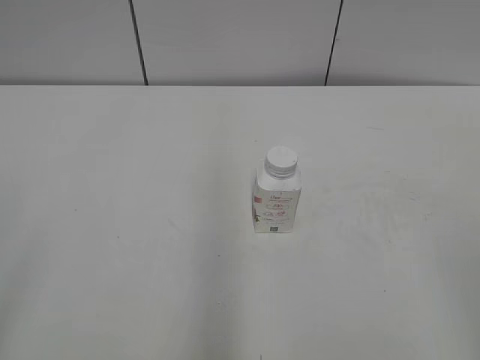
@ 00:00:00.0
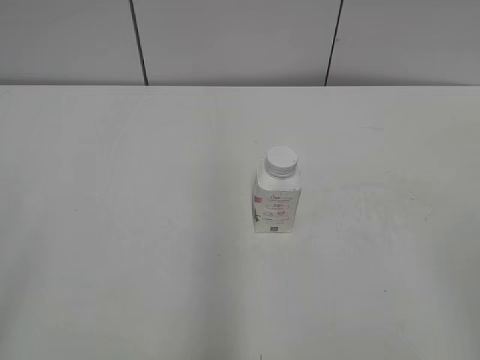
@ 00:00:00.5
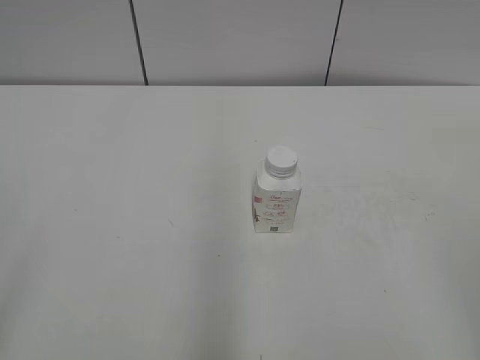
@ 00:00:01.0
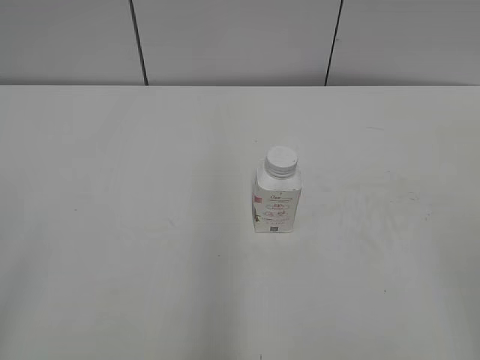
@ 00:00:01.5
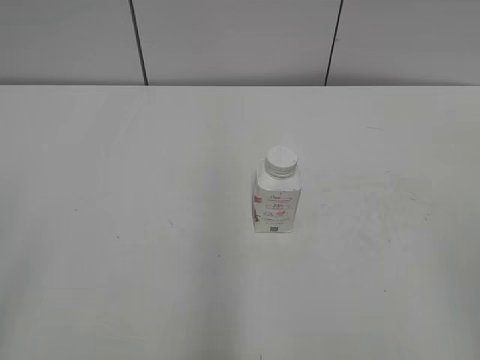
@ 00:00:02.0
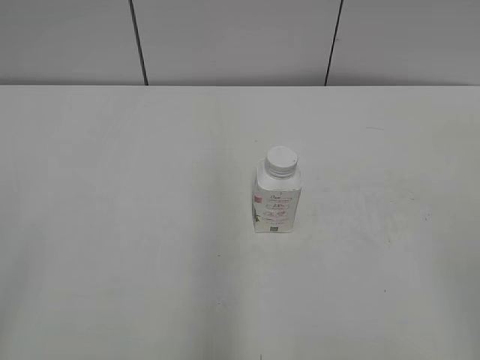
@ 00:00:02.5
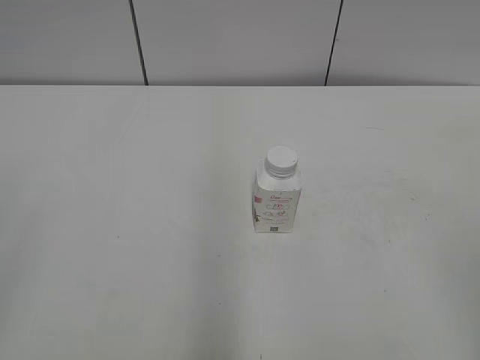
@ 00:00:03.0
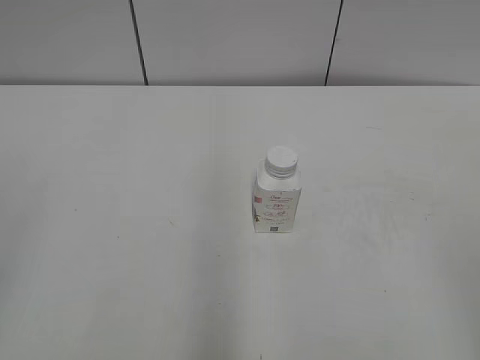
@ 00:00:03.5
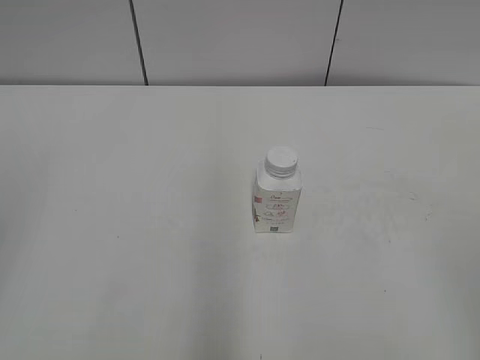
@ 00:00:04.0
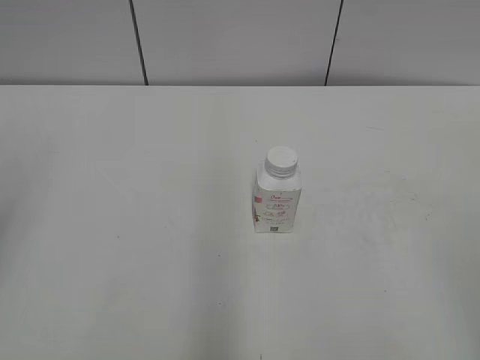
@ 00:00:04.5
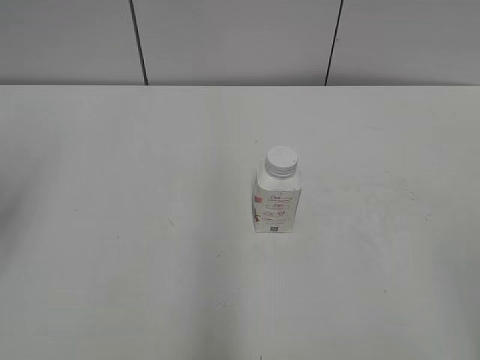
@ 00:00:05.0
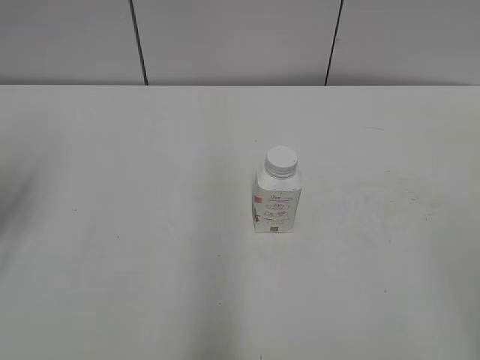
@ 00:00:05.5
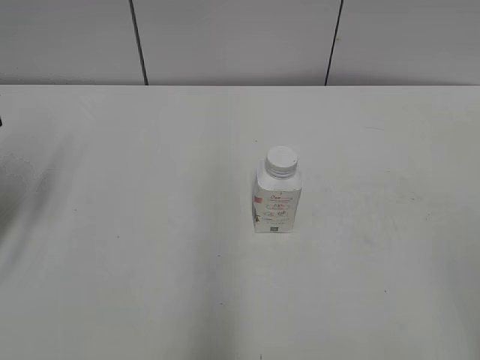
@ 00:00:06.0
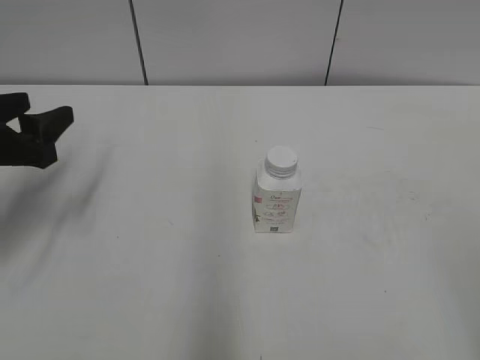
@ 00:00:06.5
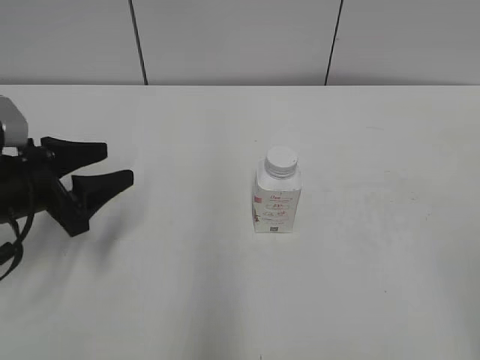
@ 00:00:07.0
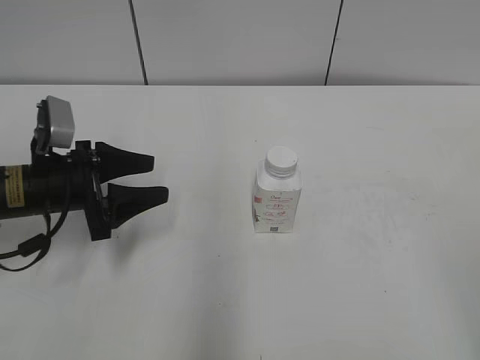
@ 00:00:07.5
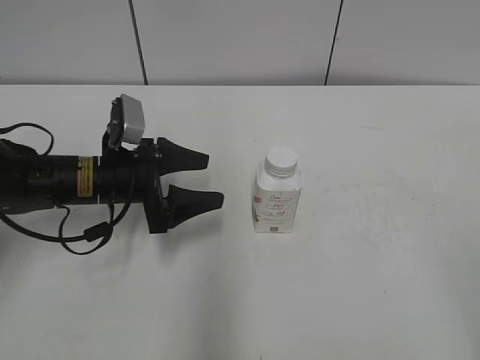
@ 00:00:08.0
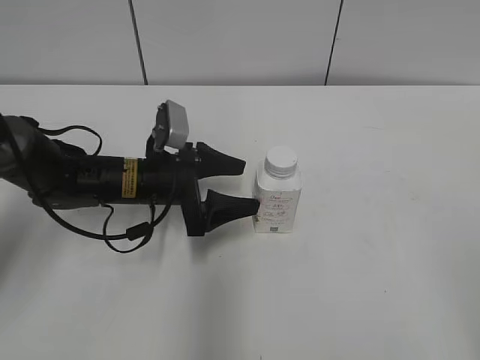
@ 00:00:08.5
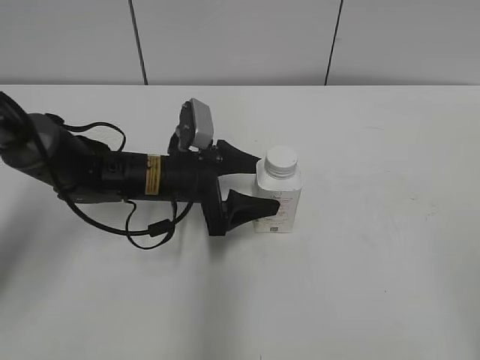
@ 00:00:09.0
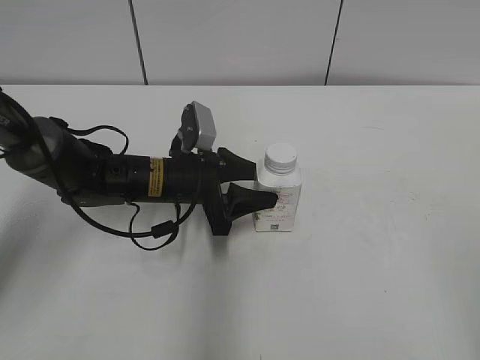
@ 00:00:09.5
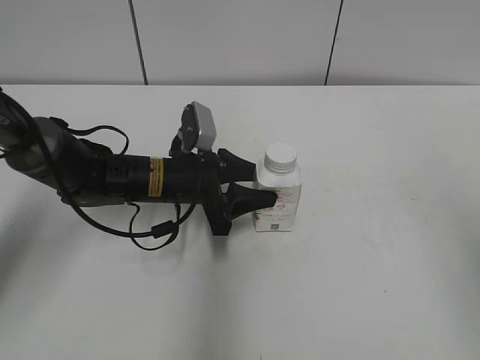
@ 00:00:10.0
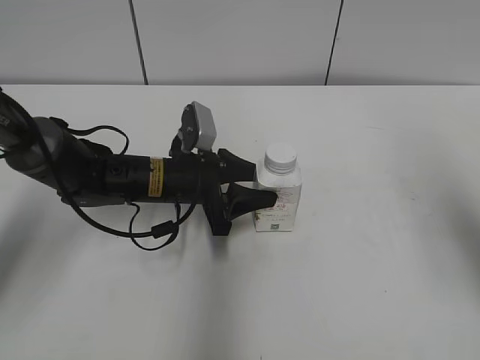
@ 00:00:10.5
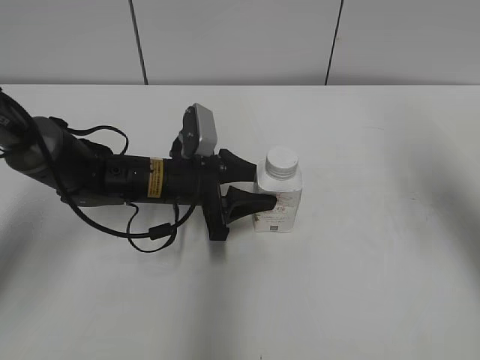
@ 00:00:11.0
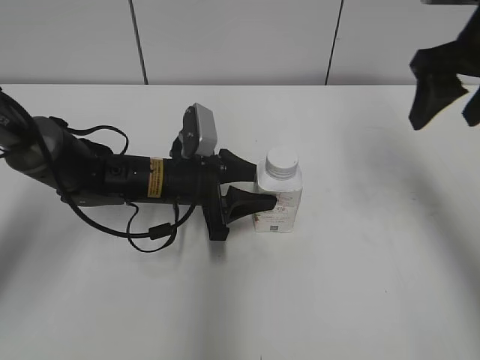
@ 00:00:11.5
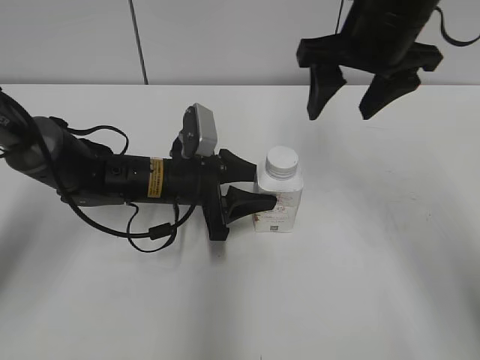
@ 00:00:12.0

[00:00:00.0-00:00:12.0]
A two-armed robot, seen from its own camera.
Step, 00:00:00.0 to 00:00:09.5: Grab the Yili Changqing with the left hand.
00:00:04.0 to 00:00:06.0: The left gripper goes approximately 20 cm forward and downward.
00:00:06.0 to 00:00:08.0: The left gripper travels to the right, downward and forward by approximately 20 cm, and opens its fingers.
00:00:08.0 to 00:00:10.0: The right gripper shifts some 10 cm forward and upward. Meanwhile the left gripper moves to the right, about 5 cm, and closes its fingers.
00:00:10.0 to 00:00:12.0: The right gripper goes approximately 30 cm forward and to the left.

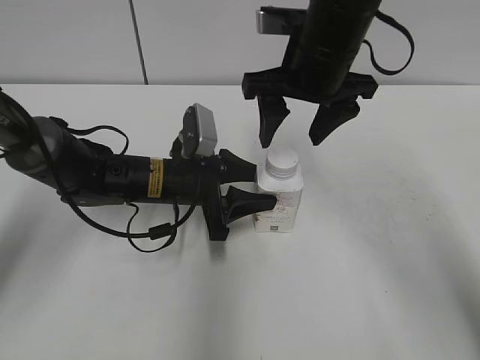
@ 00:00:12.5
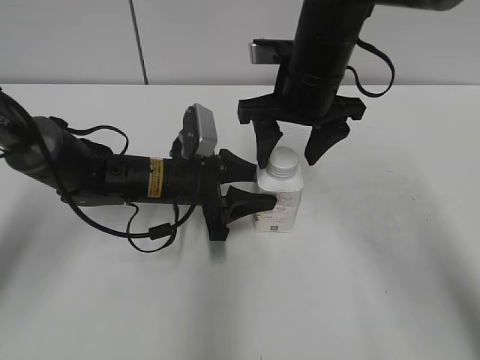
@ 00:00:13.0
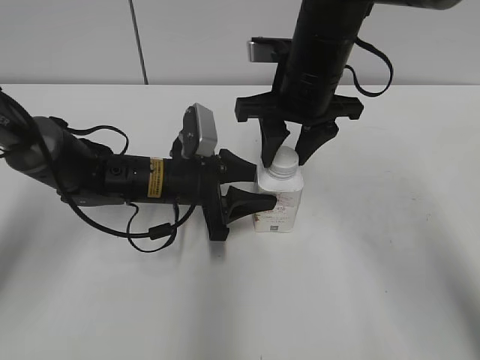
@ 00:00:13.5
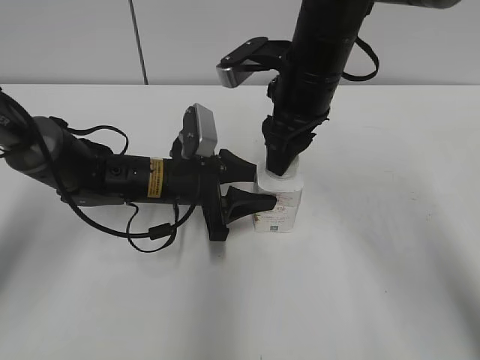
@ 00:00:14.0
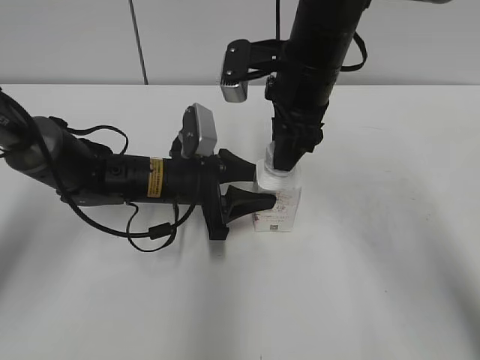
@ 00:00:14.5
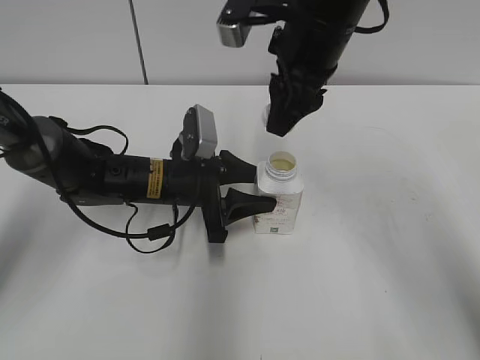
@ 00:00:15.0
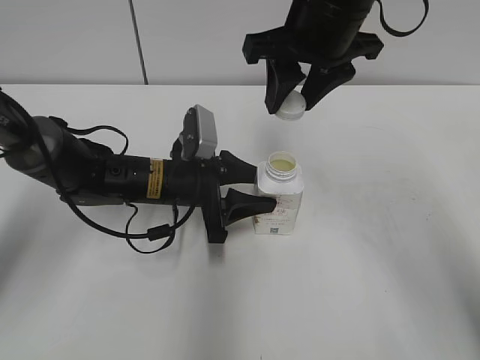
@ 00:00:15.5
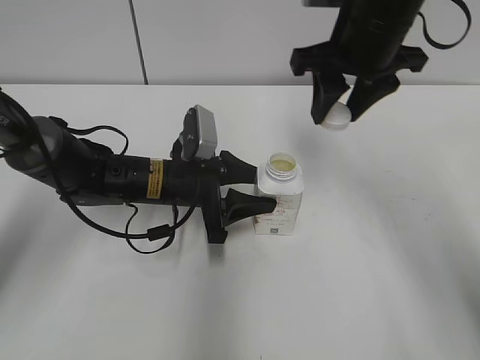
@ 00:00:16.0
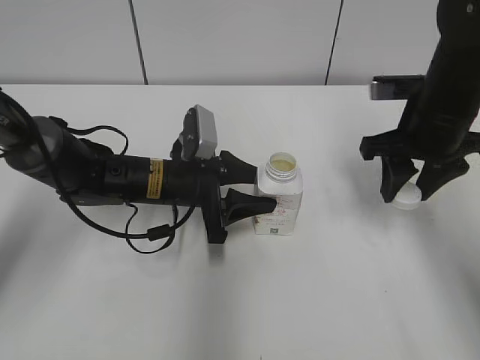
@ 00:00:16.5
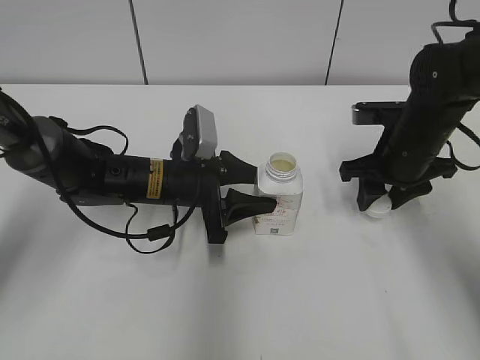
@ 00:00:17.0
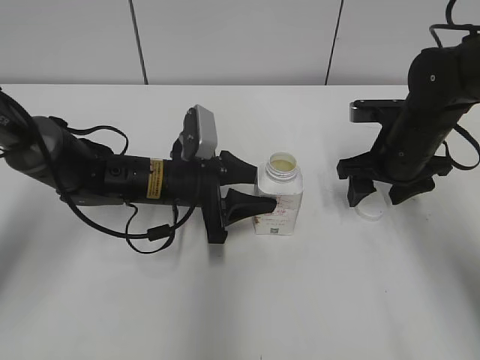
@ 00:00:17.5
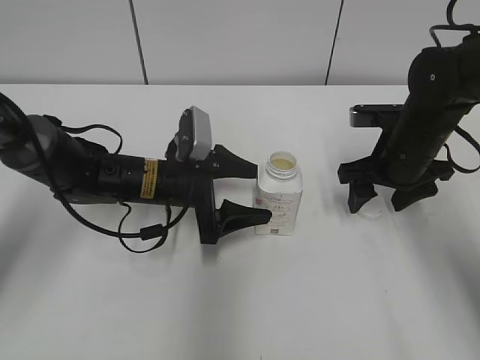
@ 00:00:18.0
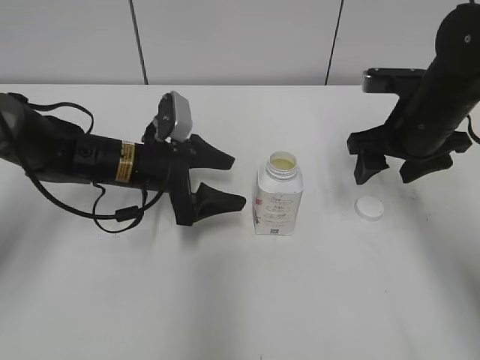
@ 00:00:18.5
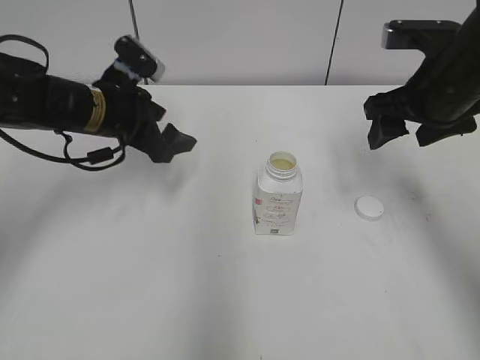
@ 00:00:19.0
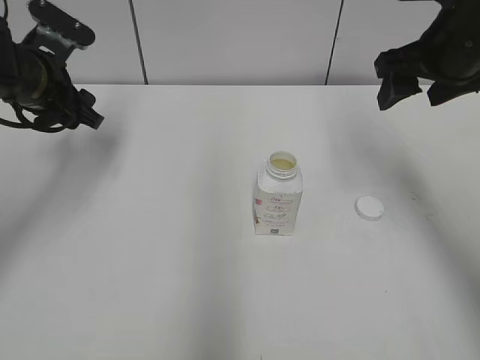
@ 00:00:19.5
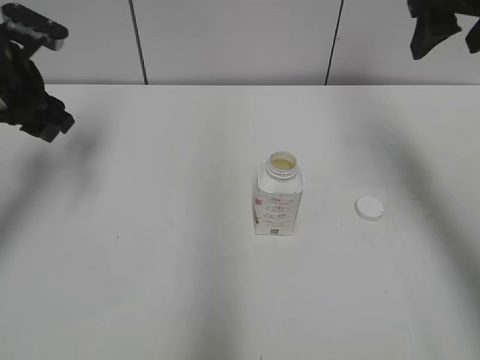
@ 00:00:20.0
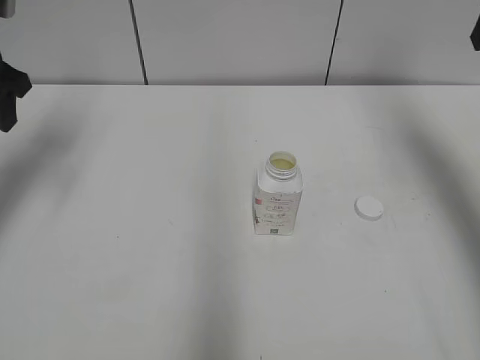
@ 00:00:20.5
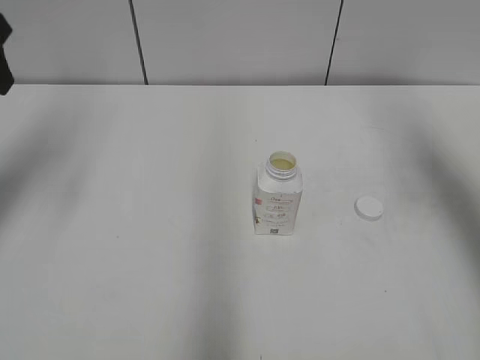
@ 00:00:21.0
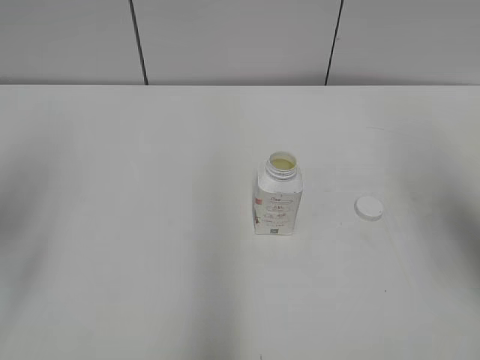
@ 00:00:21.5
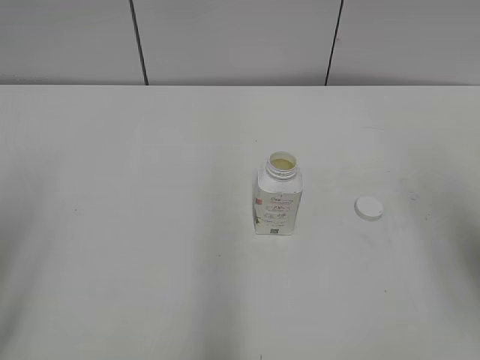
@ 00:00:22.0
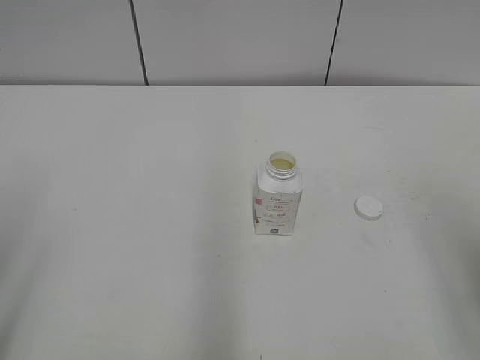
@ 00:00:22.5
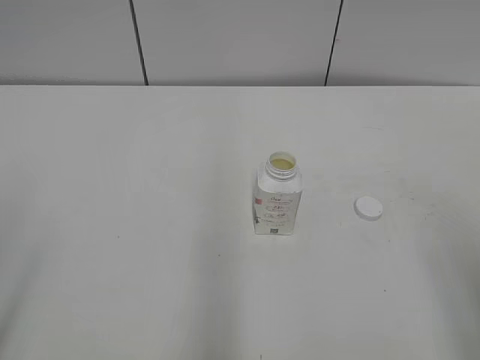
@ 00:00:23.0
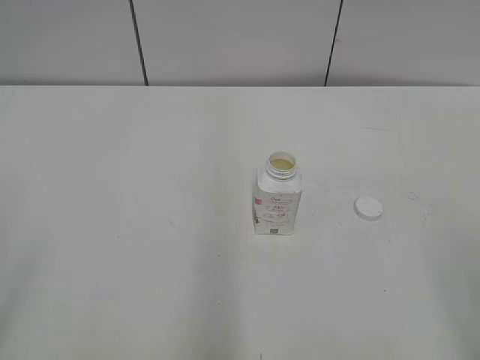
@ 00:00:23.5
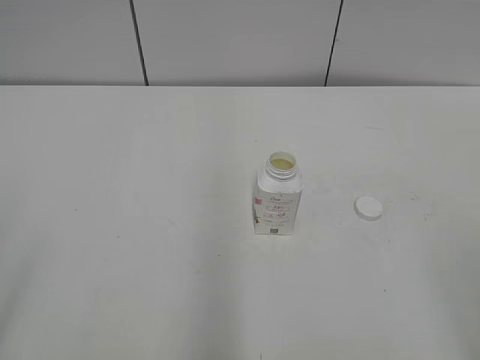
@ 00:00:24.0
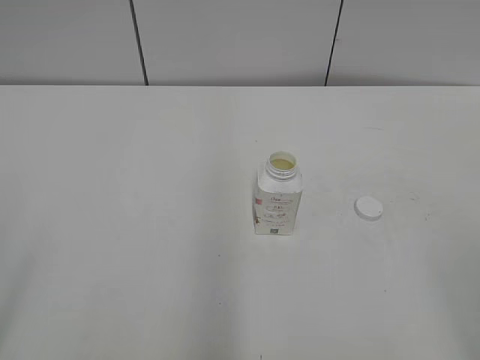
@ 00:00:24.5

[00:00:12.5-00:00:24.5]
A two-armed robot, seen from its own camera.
Step, 00:00:12.5 to 00:00:14.5: Twist the bottle cap with the right hand.
Step, 00:00:15.0 to 00:00:17.5: Place the bottle cap on the right.
00:00:12.5 to 00:00:14.5: The right gripper closes up.
00:00:14.5 to 00:00:16.5: The right gripper shifts roughly 15 cm to the right.
00:00:16.5 to 00:00:18.5: The left gripper opens up. The right gripper opens its fingers.
00:00:18.5 to 00:00:20.5: The left gripper is displaced upward and to the left by some 25 cm, and closes. Meanwhile the right gripper heads upward and to the right, covering roughly 20 cm.
00:00:20.5 to 00:00:22.5: The grippers both shift backward by about 25 cm.
